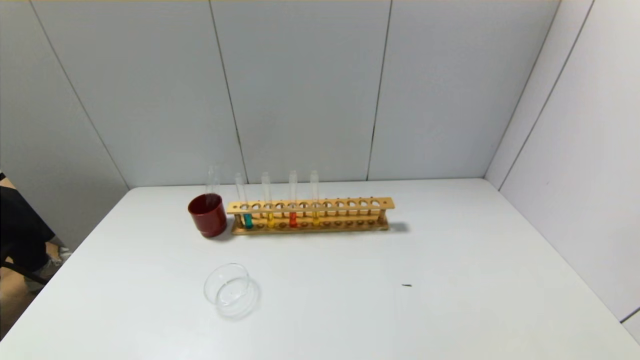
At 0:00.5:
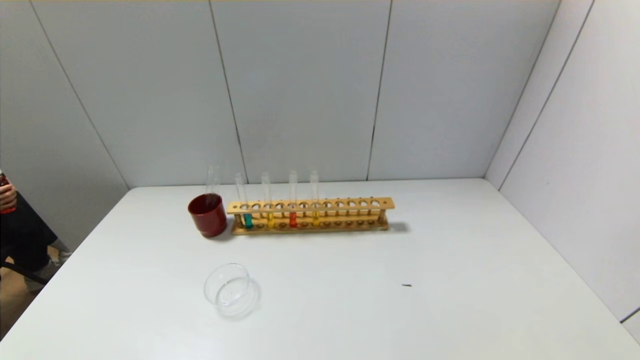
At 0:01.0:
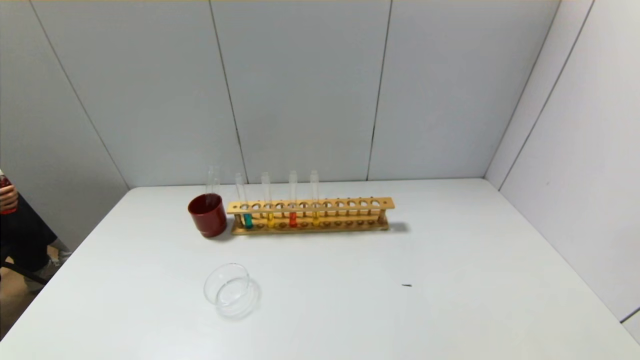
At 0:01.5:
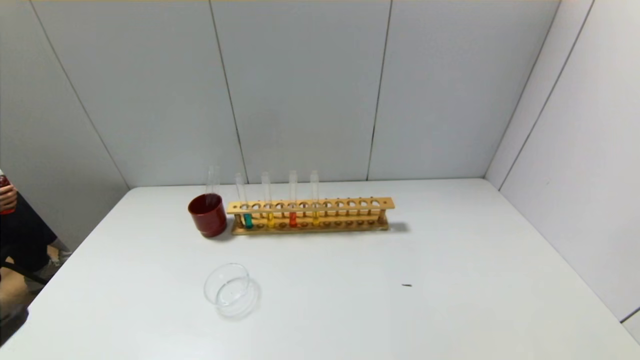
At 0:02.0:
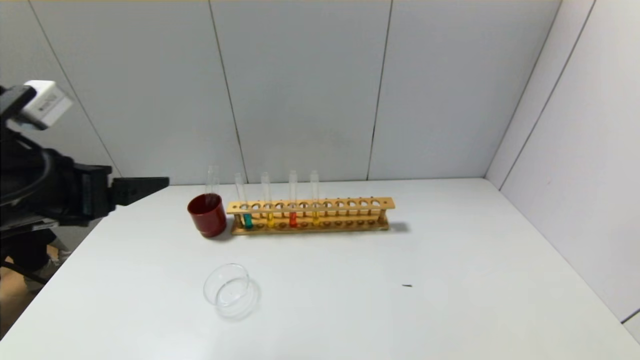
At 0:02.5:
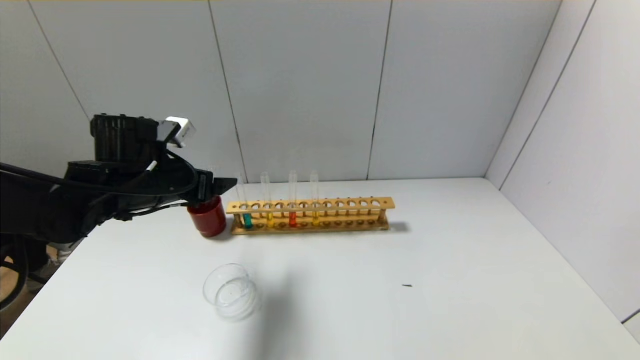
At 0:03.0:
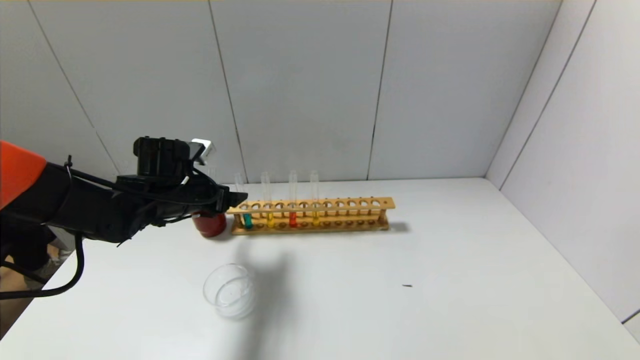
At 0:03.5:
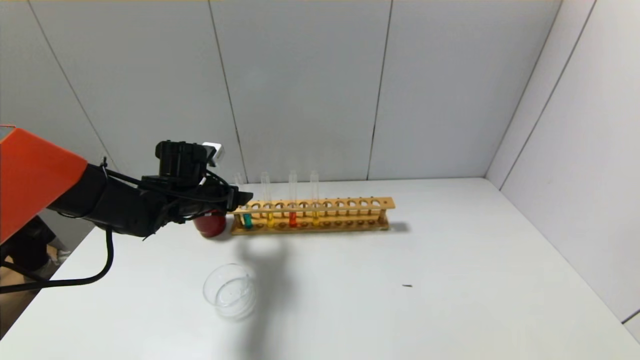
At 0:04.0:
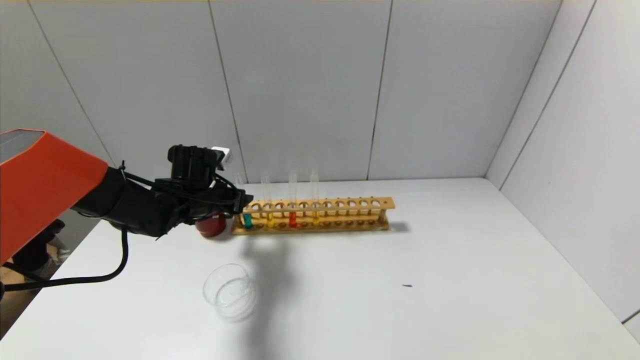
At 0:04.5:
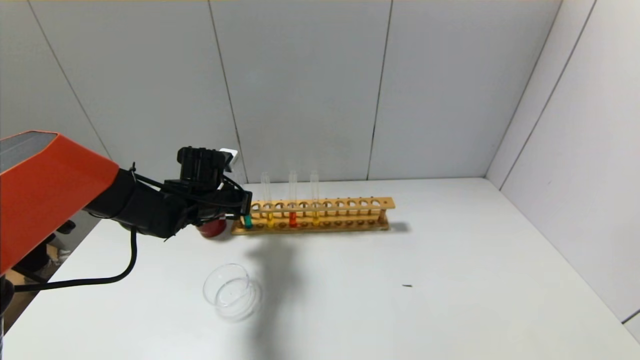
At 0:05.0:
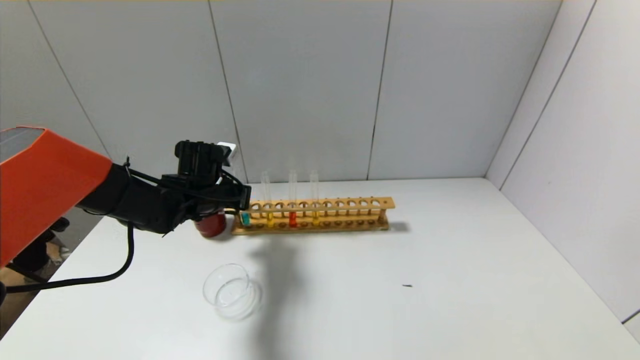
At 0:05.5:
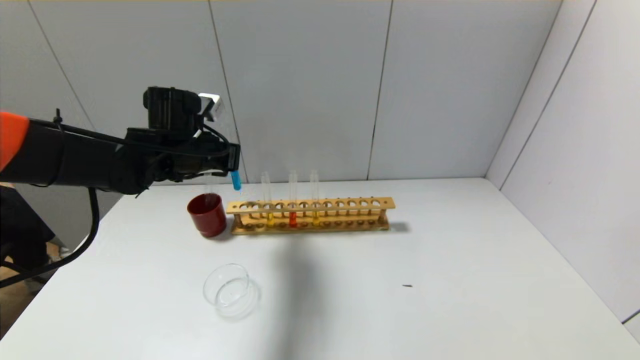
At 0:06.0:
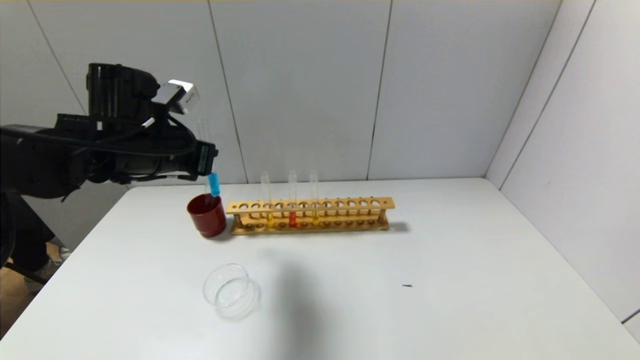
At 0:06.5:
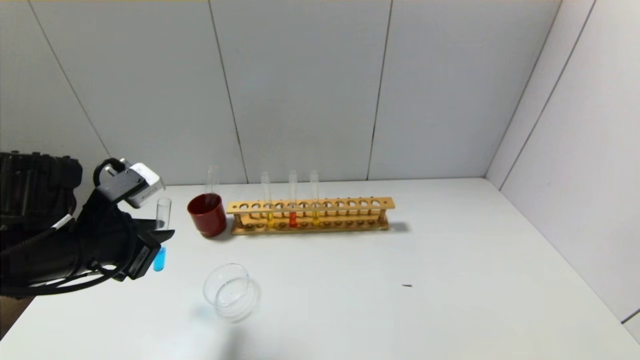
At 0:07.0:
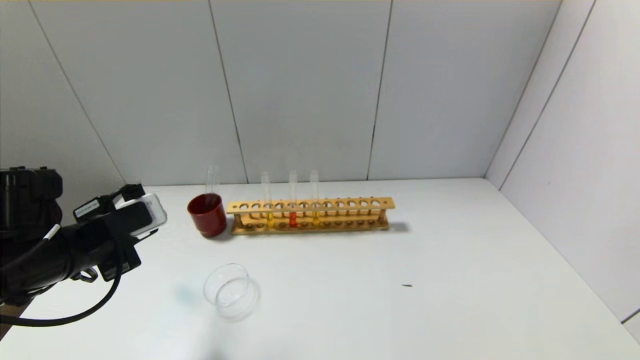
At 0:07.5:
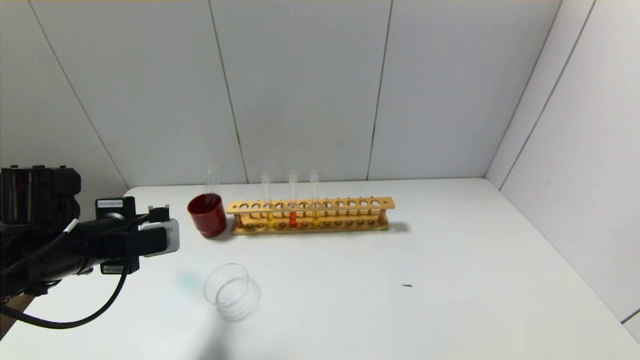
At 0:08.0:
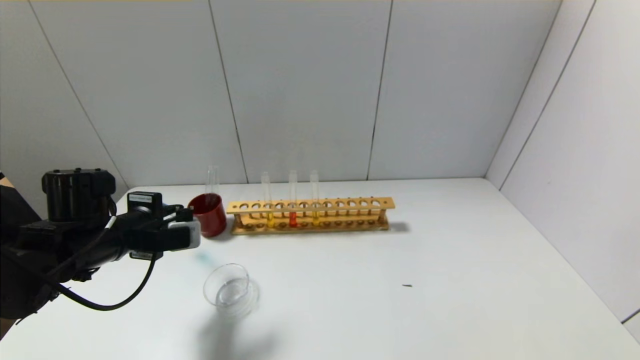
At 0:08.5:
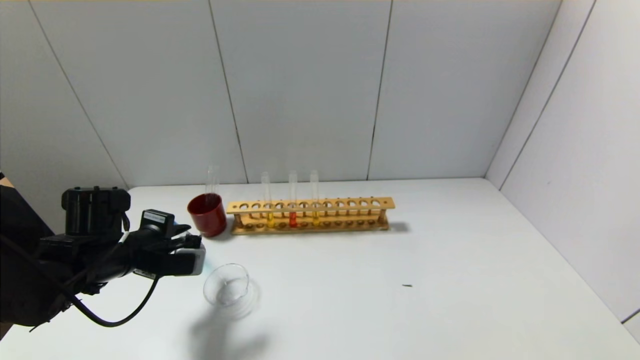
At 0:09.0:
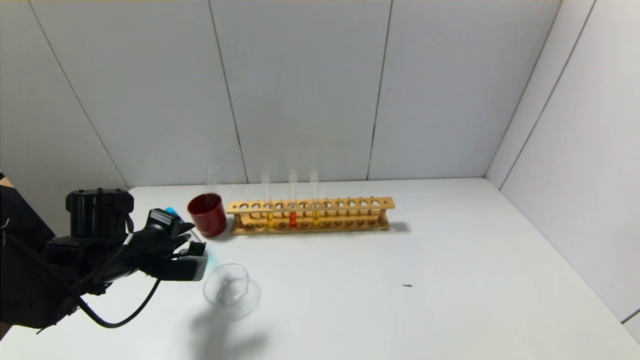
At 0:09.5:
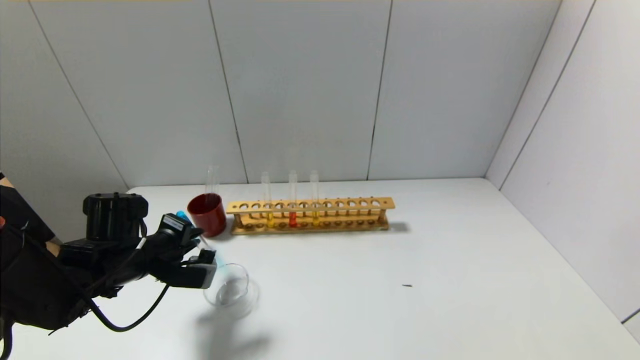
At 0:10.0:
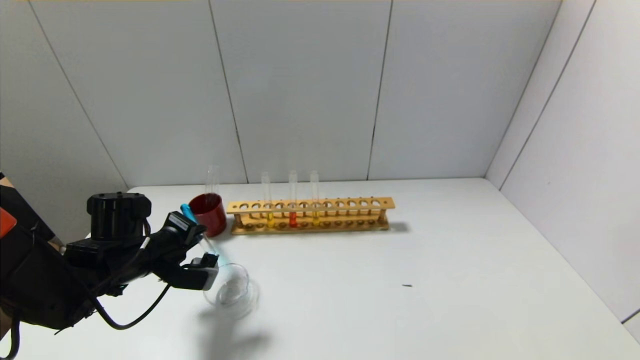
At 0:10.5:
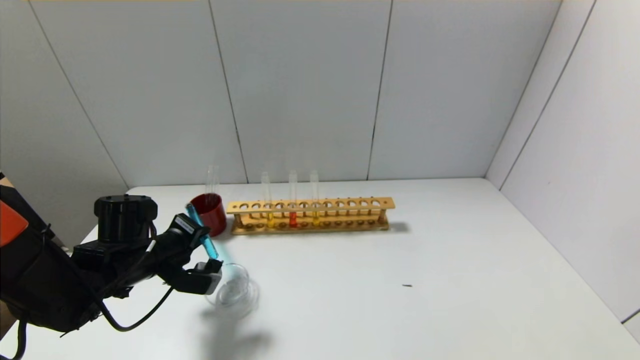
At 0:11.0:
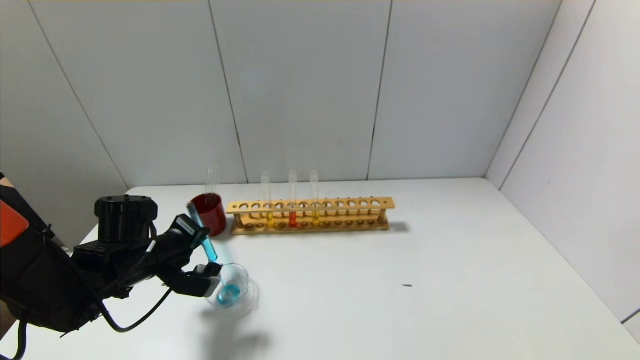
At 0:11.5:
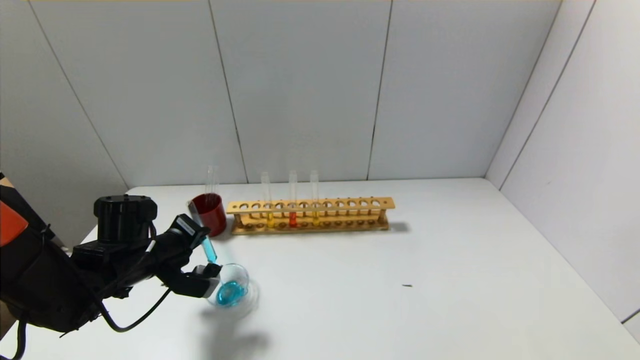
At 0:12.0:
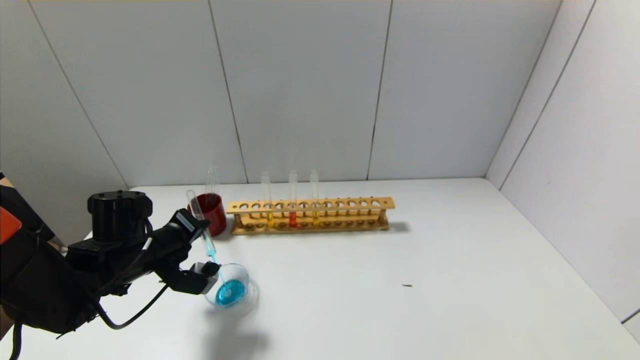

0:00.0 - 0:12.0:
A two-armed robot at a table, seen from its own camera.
Step, 0:00.0 - 0:04.0: Grasp the blue reagent with the left gripper.
0:00.0 - 0:02.0: The left gripper goes about 30 cm forward and upward.
0:02.0 - 0:04.0: The left gripper heads forward and downward, covering some 25 cm, and closes.
0:04.0 - 0:06.0: The left gripper travels upward and backward by roughly 15 cm, and closes up.
0:06.0 - 0:08.0: The left gripper travels downward and to the left by about 10 cm.
0:10.0 - 0:12.0: There are only small adjustments of the grippers.

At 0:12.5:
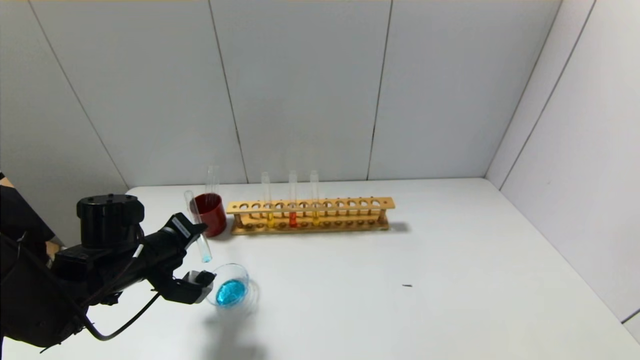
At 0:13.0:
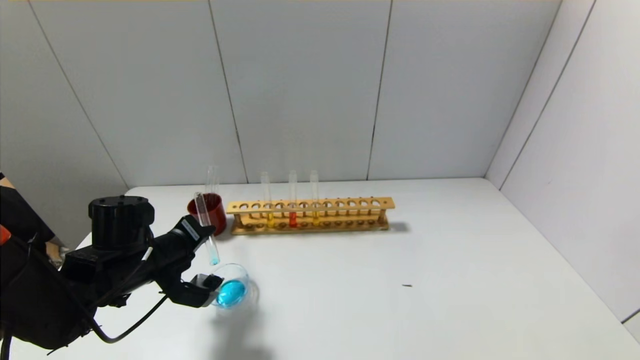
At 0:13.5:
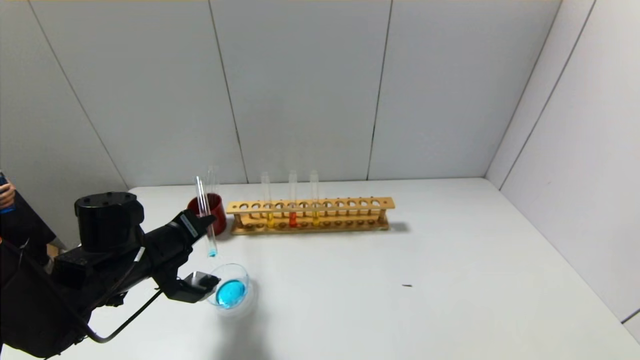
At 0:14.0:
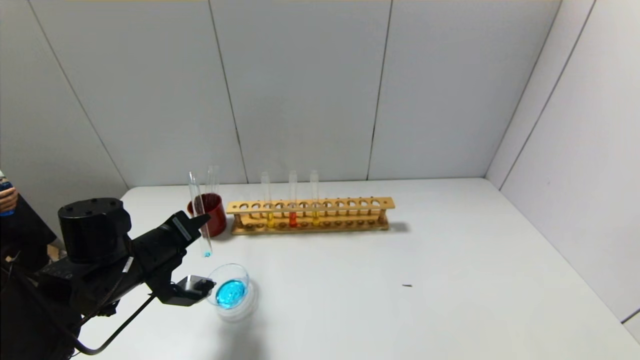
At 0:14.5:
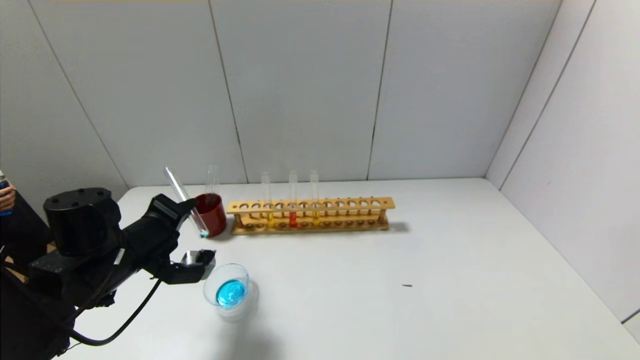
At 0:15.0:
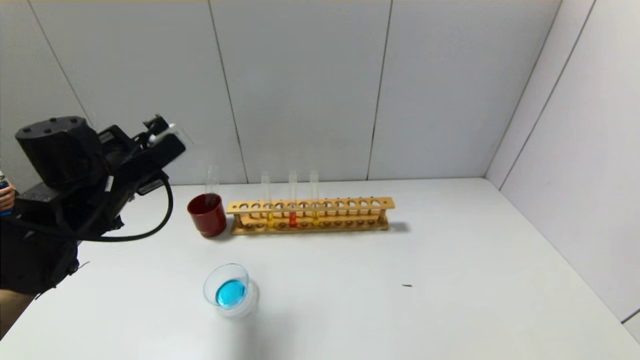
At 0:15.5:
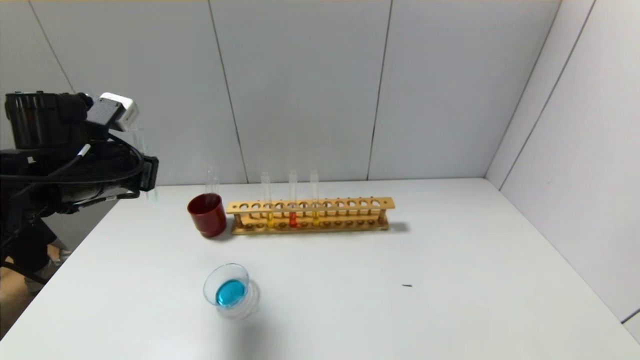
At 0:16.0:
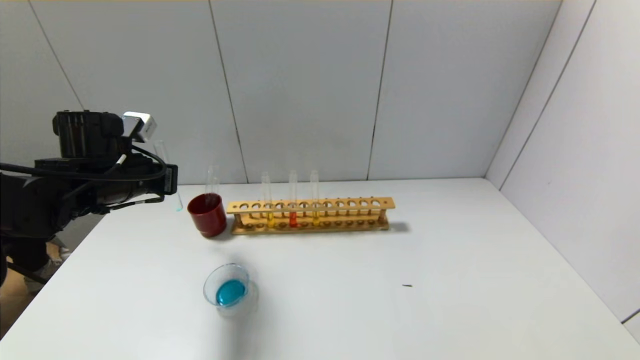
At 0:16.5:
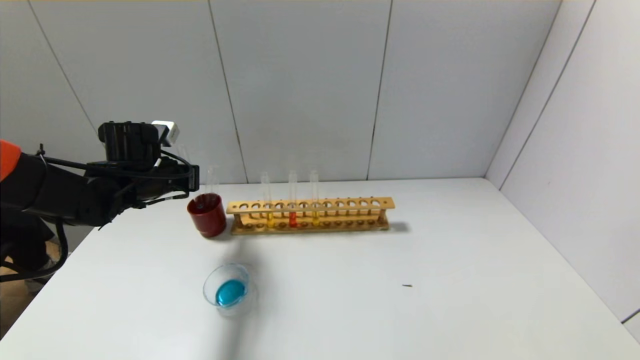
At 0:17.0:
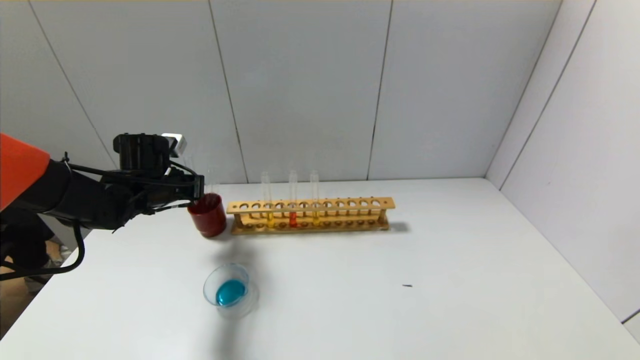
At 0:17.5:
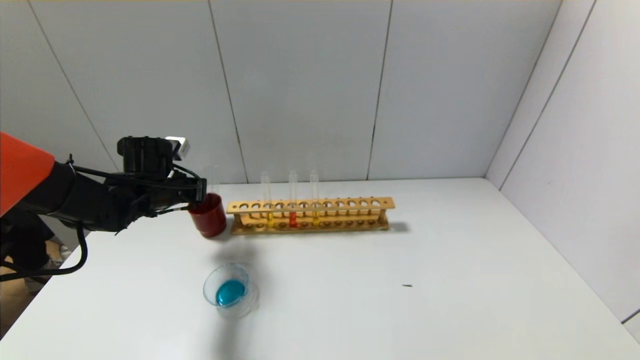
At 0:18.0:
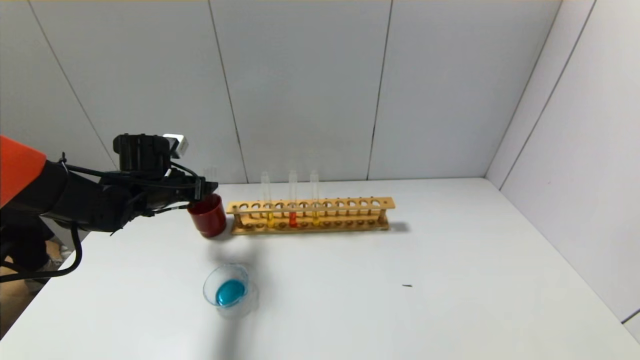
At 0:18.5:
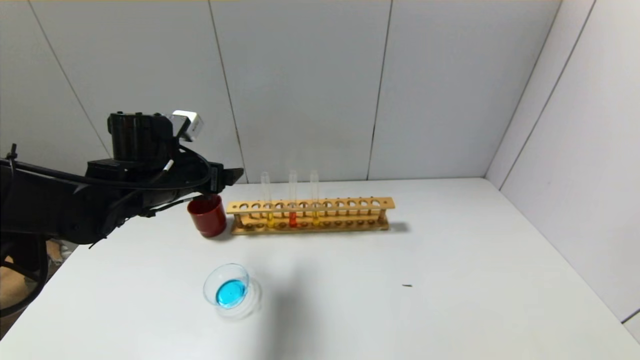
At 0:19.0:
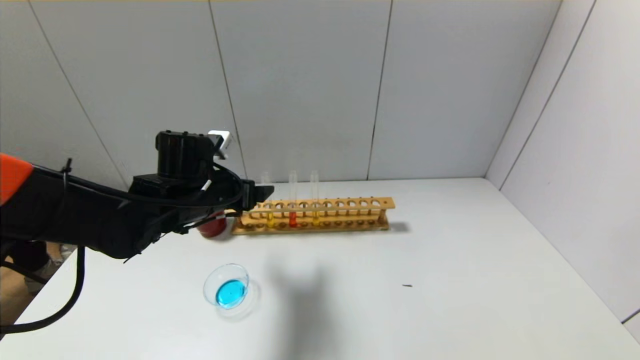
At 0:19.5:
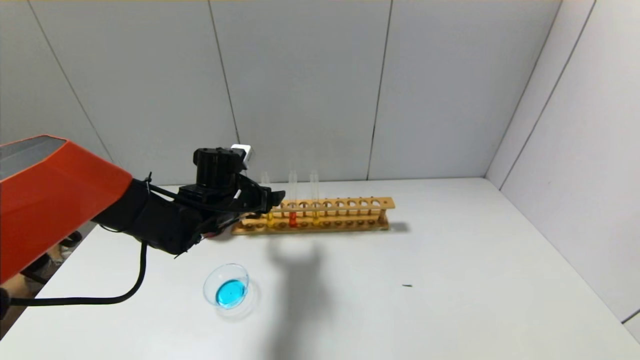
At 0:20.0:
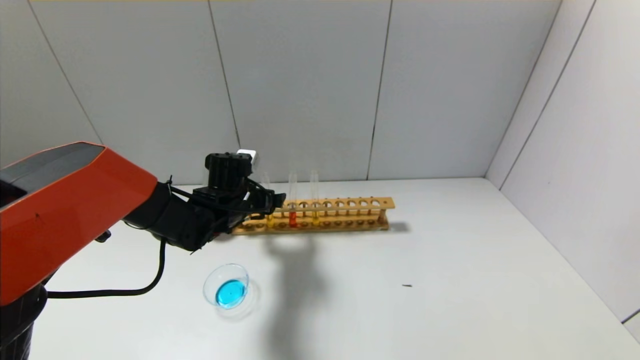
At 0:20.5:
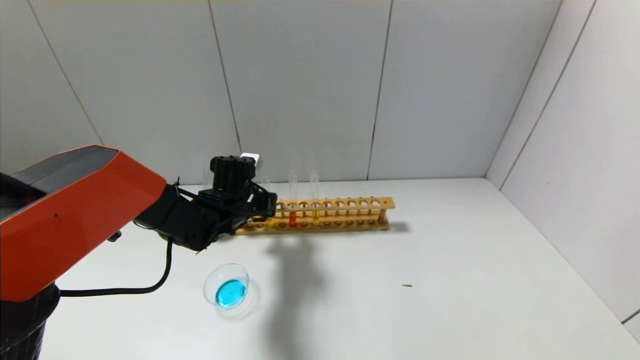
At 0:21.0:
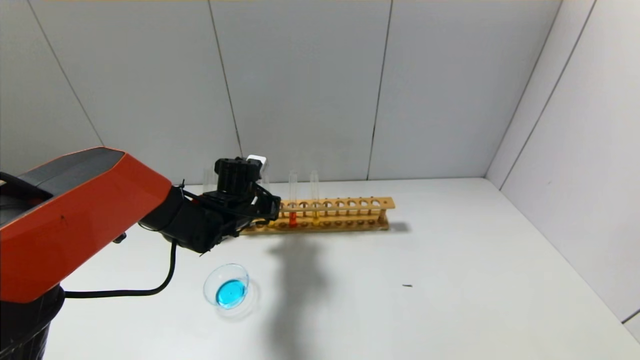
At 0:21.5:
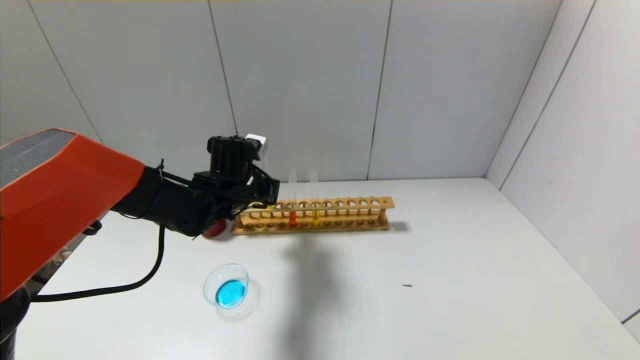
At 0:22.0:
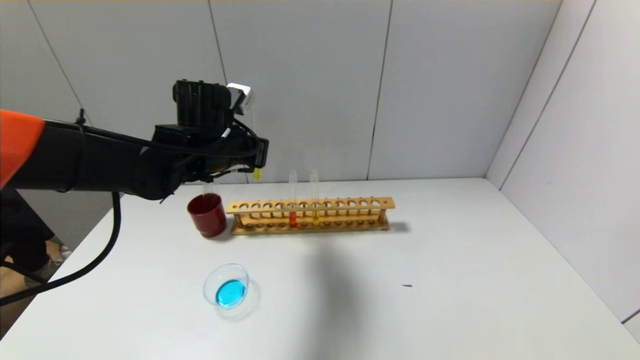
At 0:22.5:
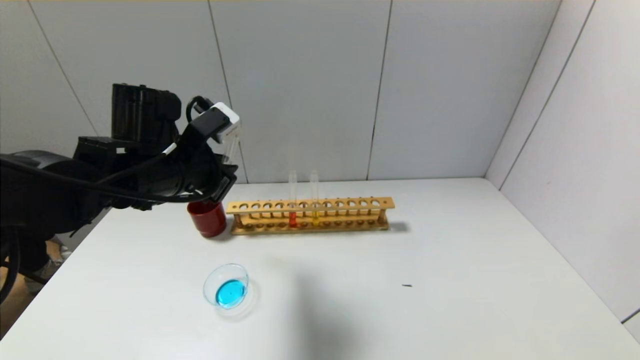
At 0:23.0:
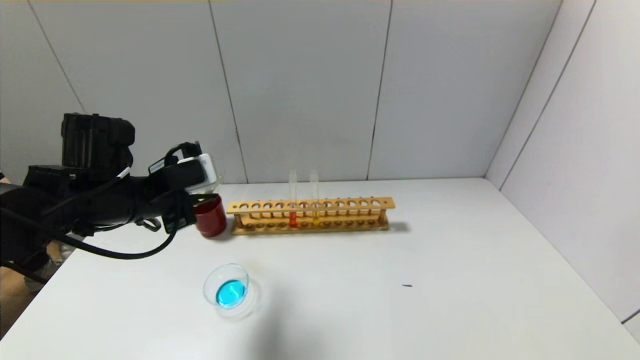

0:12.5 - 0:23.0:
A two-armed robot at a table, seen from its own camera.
Step, 0:12.5 - 0:14.5: Pour the blue reagent into the graduated cylinder with the left gripper.
Step, 0:15.0 - 0:17.5: Place the test tube into the brown cup with the left gripper.
Step, 0:18.0 - 0:20.5: Grasp the yellow reagent with the left gripper.
0:12.5 - 0:14.5: The grippers make only small movements.
0:14.5 - 0:16.5: The left gripper moves forward, about 10 cm.
0:16.5 - 0:19.0: The left gripper goes about 10 cm to the right and backward, and opens up.
0:19.0 - 0:21.0: The left gripper moves downward and forward, approximately 10 cm, and closes.
0:21.0 - 0:23.0: The left gripper shifts roughly 20 cm backward, upward and to the left.
